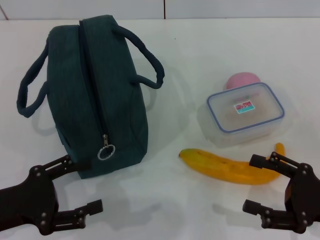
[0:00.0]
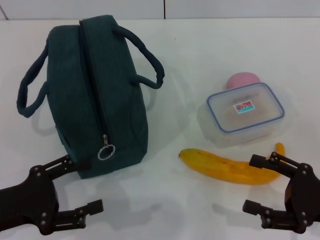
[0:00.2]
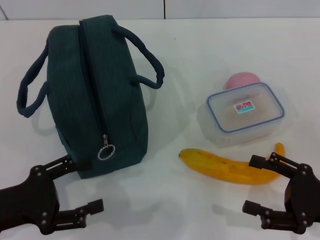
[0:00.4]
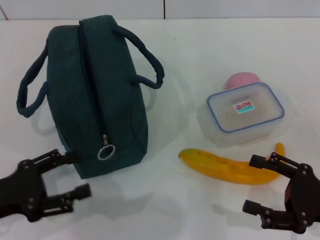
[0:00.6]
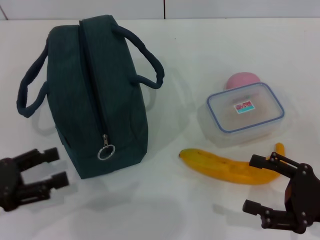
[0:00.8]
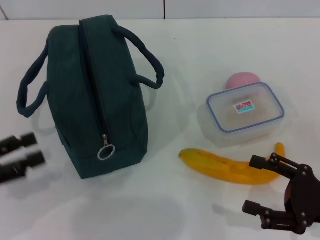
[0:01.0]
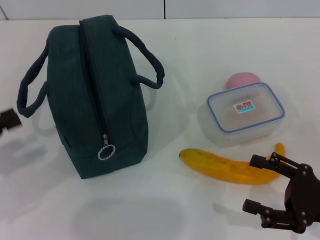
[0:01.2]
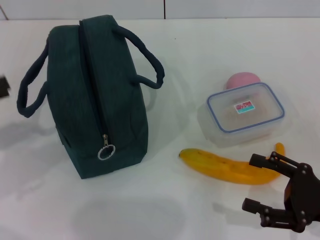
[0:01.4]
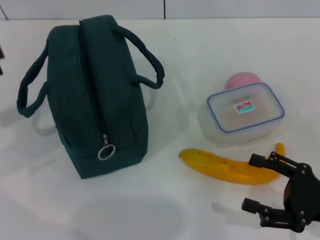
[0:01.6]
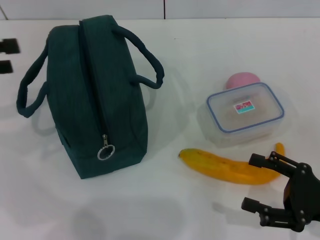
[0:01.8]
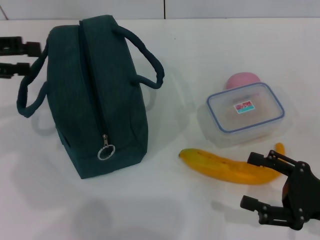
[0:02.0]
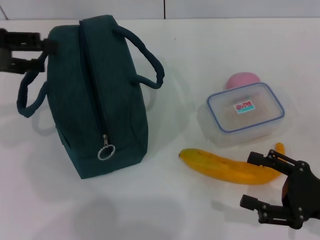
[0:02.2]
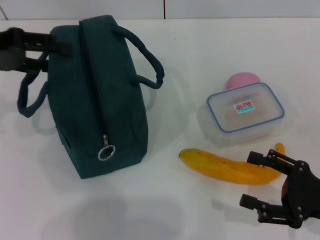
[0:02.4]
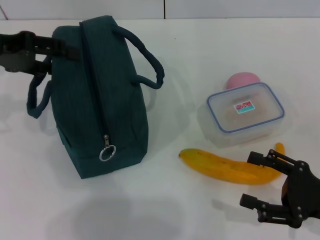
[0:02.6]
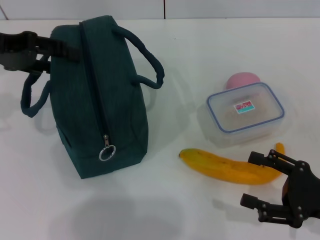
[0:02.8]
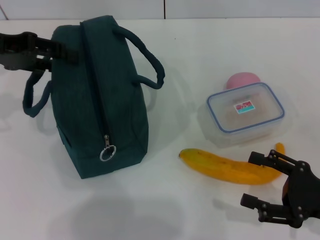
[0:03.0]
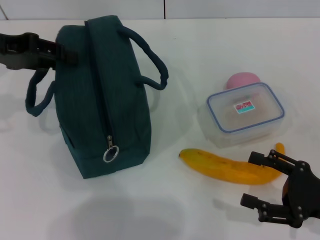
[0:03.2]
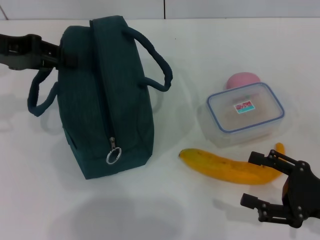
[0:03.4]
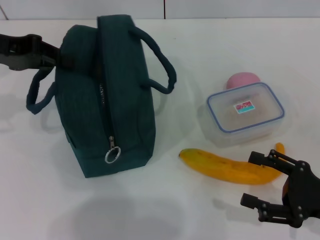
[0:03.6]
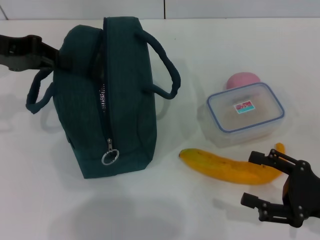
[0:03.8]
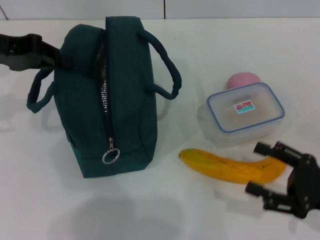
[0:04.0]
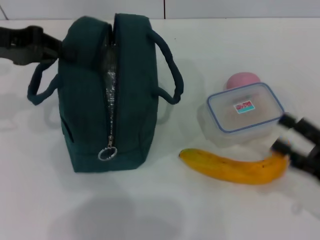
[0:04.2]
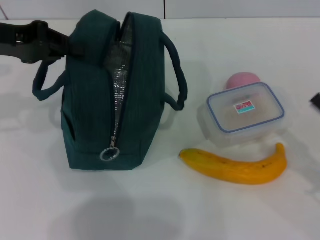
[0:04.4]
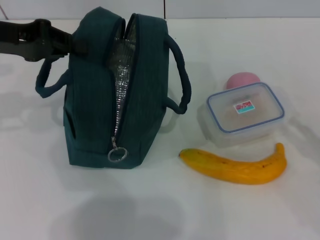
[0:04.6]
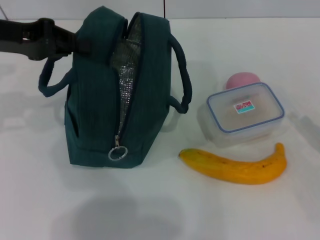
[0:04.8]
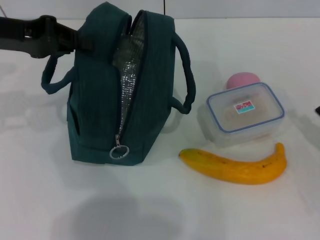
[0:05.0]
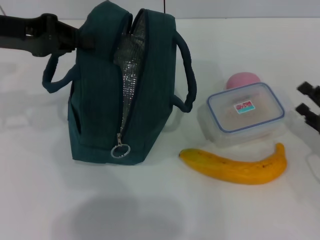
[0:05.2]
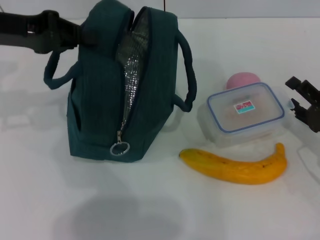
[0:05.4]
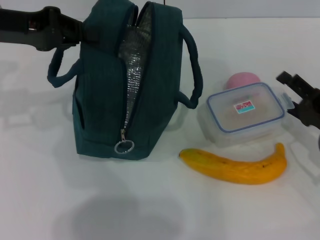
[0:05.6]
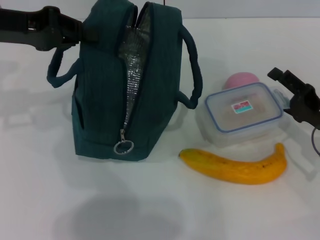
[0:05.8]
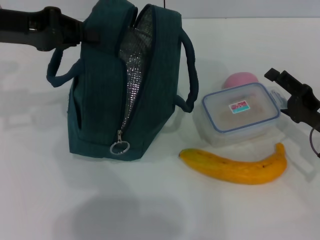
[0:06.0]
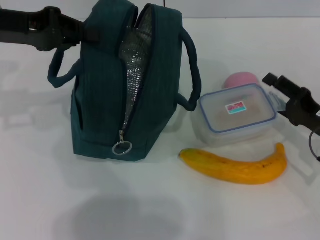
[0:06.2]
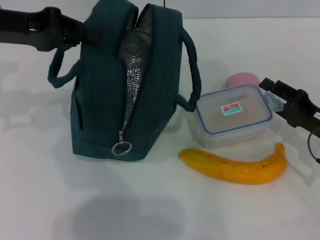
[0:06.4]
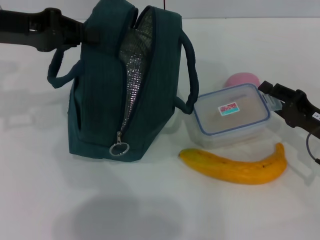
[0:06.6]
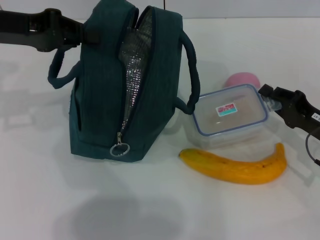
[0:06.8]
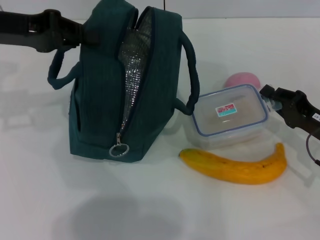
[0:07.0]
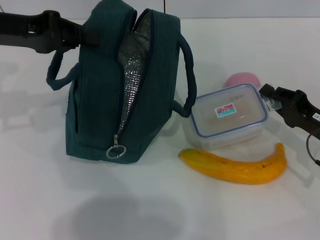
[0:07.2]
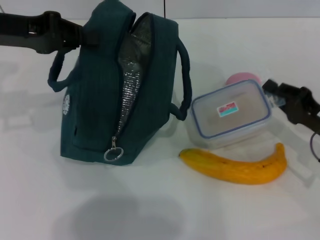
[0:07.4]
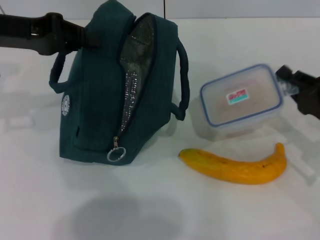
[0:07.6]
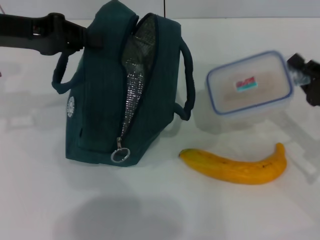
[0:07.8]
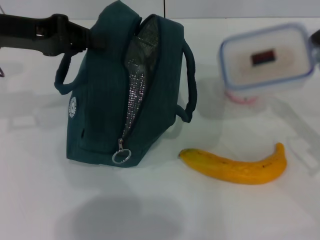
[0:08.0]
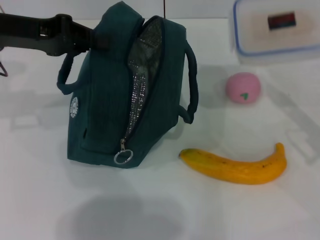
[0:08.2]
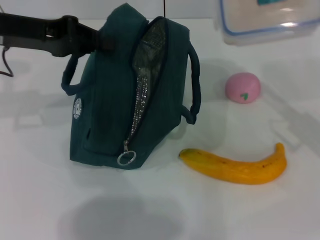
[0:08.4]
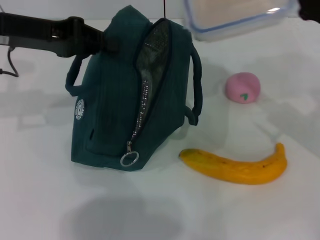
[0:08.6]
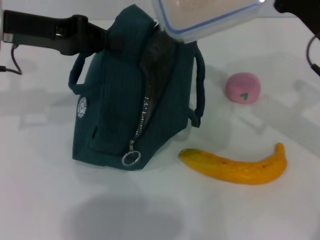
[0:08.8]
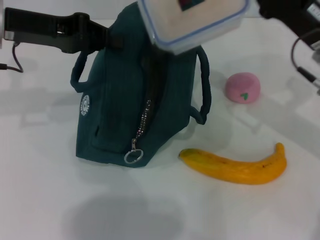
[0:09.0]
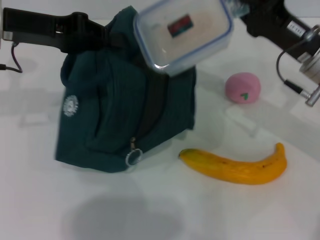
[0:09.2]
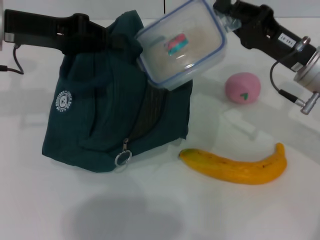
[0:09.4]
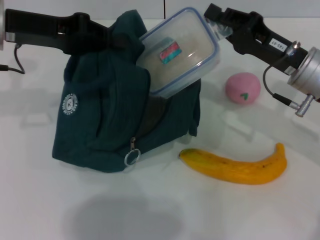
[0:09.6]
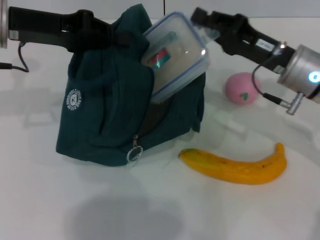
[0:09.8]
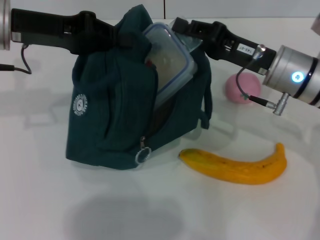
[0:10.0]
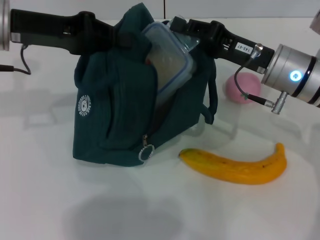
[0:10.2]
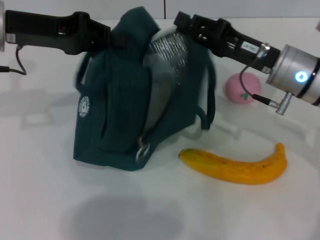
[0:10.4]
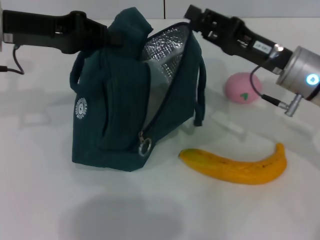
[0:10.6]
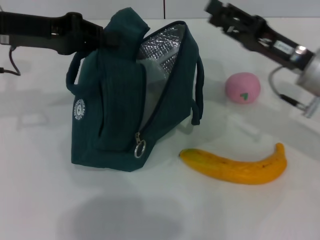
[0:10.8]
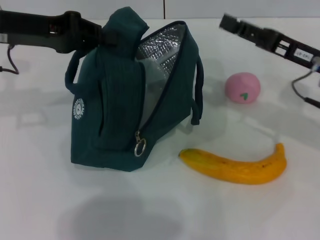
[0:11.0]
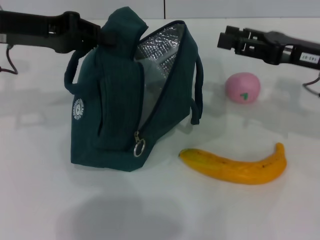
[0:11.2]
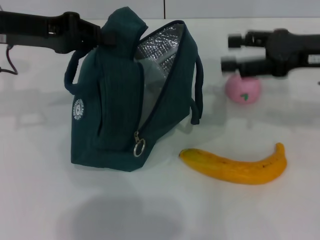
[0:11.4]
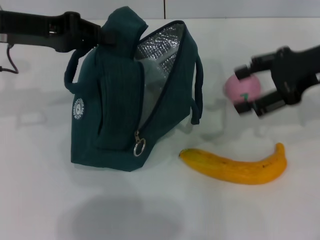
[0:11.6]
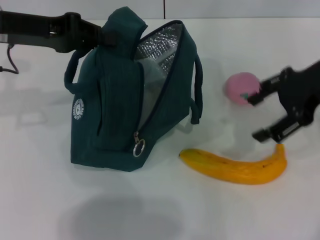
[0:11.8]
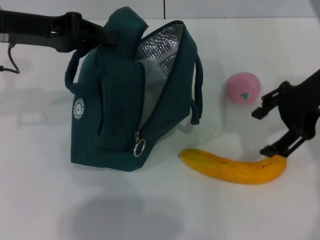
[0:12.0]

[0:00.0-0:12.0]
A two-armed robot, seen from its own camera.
Step, 0:00.0 to 0:04.6: Hold the lunch bag with your left hand.
Step, 0:04.8 to 0:06.6: Pick up the lunch box with your right hand.
Step, 0:06.8 to 0:10.2: Place the lunch box into the lunch bag with your right hand.
0:00.0 to 0:01.6: The left gripper travels upward, forward and to the left by approximately 20 cm.
0:01.6 to 0:03.0: The left gripper is displaced to the right and forward by approximately 10 cm.
0:03.0 to 0:04.4: The left gripper closes up.
0:04.4 to 0:06.0: The right gripper goes roughly 10 cm forward.
0:06.0 to 0:07.6: The right gripper closes up.
0:07.6 to 0:09.0: The right gripper is displaced upward, forward and to the left by roughly 15 cm.
0:10.4 to 0:12.0: The right gripper shifts roughly 10 cm upward, and opens its fingers.

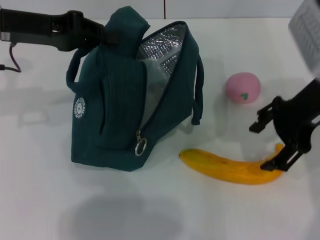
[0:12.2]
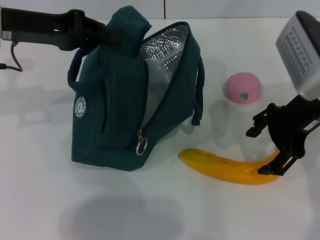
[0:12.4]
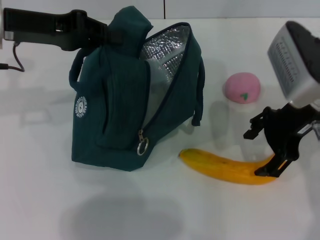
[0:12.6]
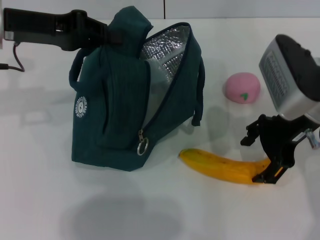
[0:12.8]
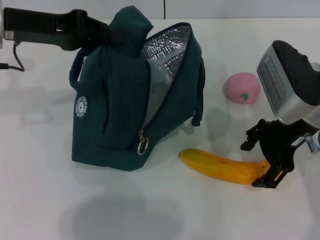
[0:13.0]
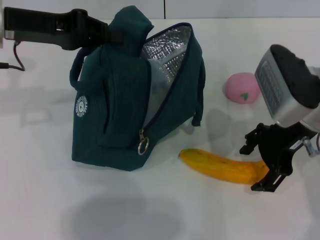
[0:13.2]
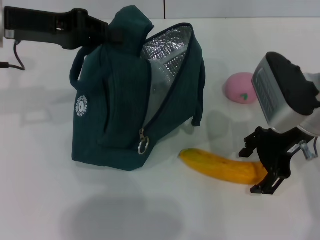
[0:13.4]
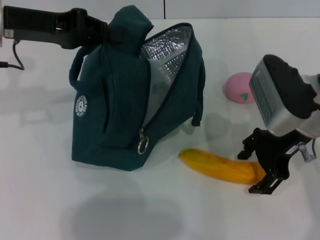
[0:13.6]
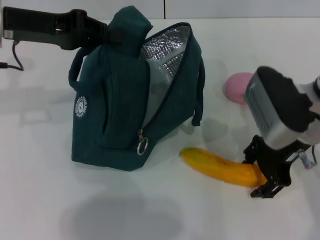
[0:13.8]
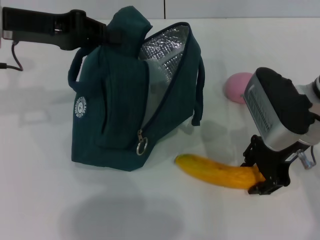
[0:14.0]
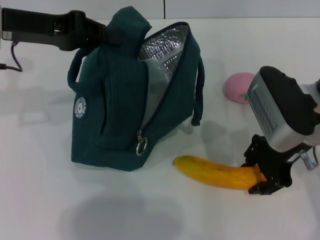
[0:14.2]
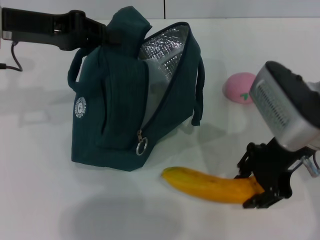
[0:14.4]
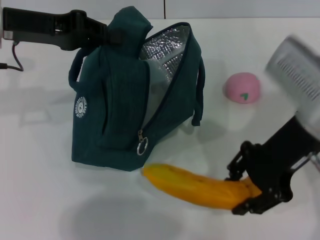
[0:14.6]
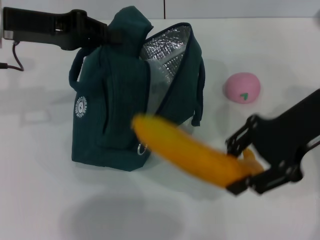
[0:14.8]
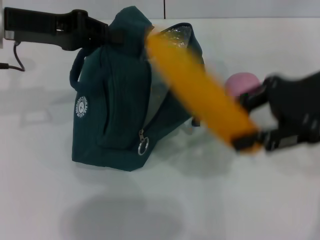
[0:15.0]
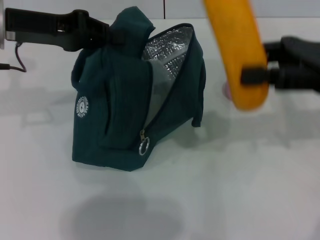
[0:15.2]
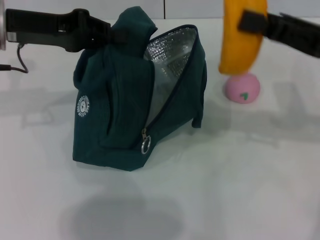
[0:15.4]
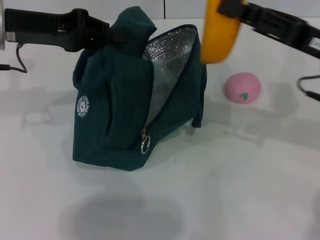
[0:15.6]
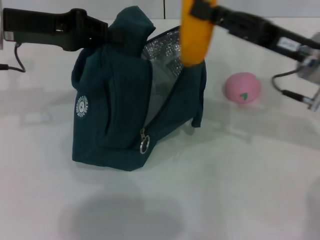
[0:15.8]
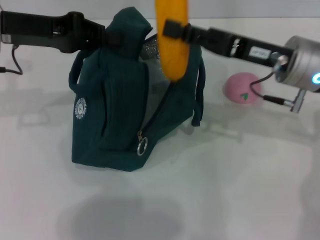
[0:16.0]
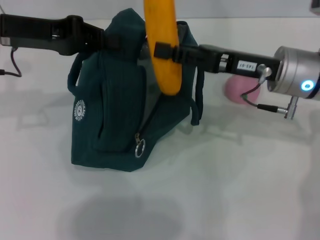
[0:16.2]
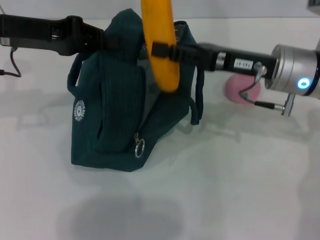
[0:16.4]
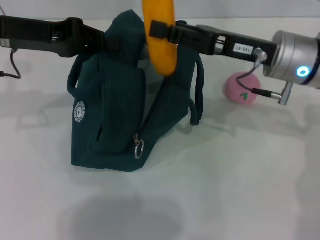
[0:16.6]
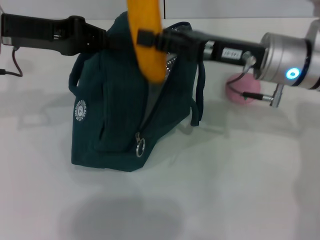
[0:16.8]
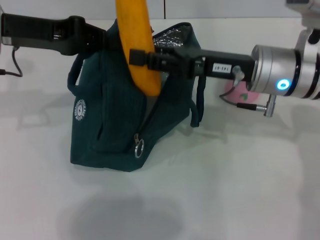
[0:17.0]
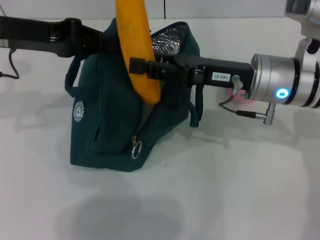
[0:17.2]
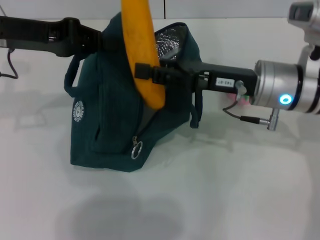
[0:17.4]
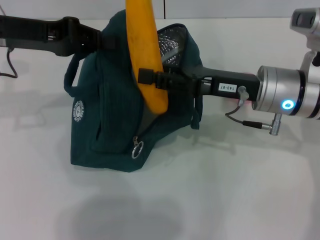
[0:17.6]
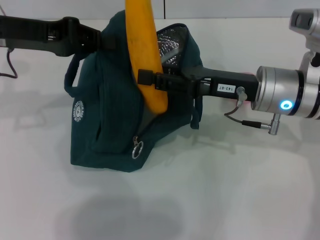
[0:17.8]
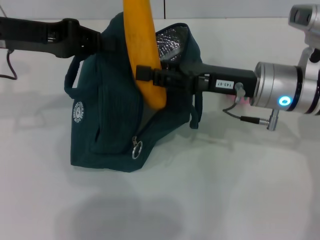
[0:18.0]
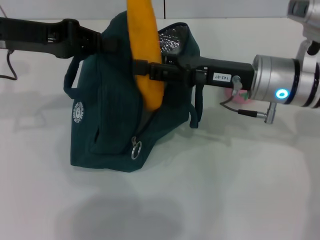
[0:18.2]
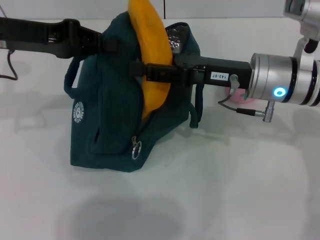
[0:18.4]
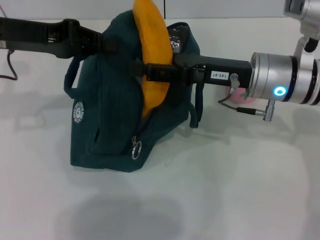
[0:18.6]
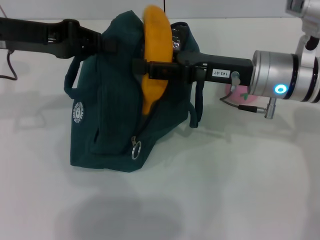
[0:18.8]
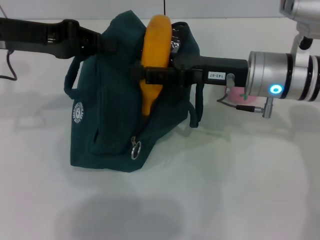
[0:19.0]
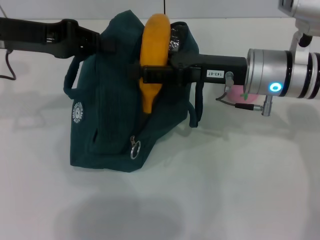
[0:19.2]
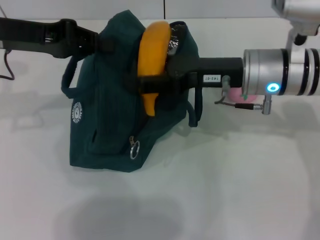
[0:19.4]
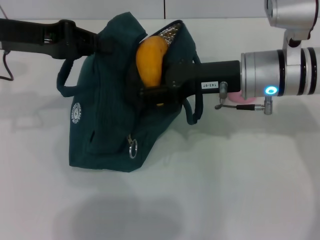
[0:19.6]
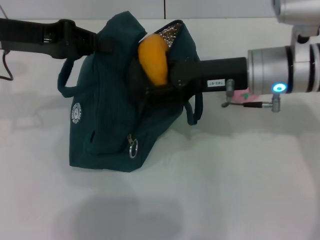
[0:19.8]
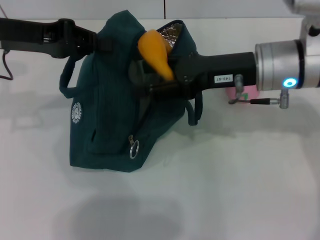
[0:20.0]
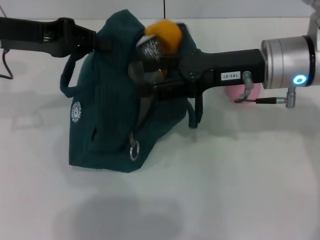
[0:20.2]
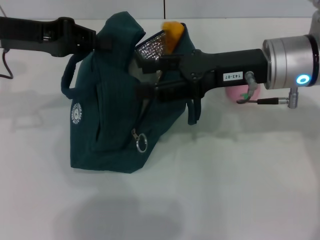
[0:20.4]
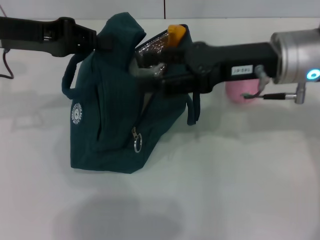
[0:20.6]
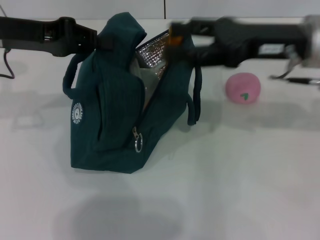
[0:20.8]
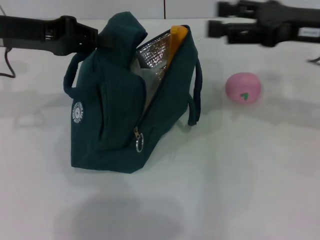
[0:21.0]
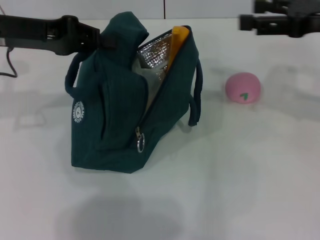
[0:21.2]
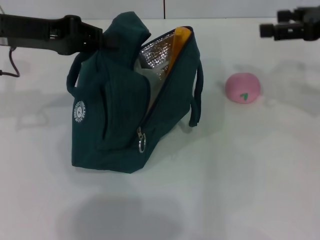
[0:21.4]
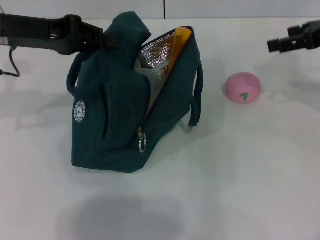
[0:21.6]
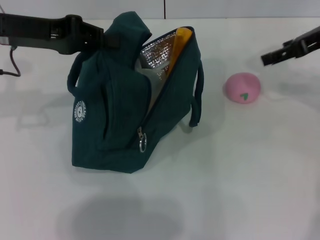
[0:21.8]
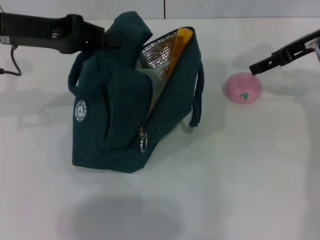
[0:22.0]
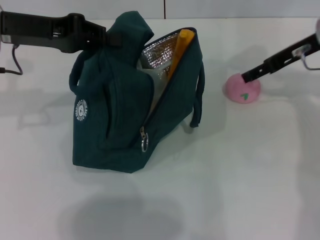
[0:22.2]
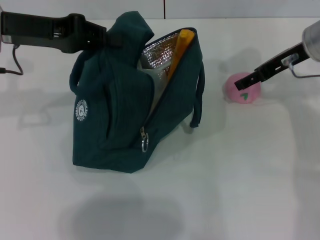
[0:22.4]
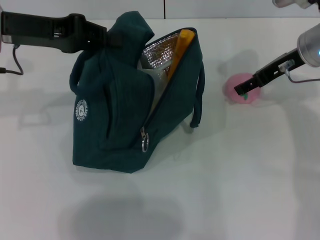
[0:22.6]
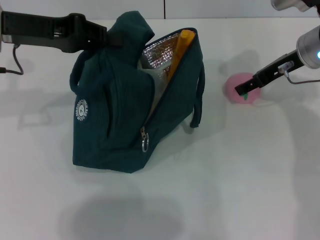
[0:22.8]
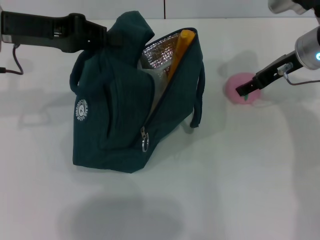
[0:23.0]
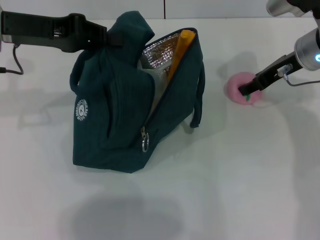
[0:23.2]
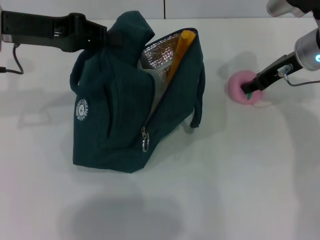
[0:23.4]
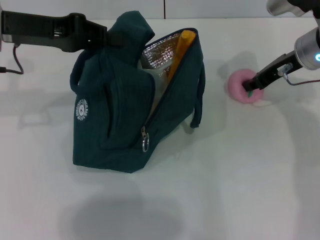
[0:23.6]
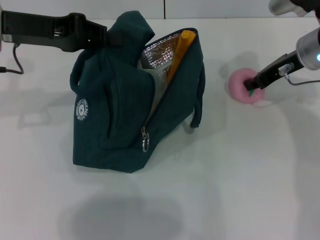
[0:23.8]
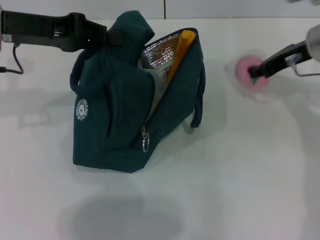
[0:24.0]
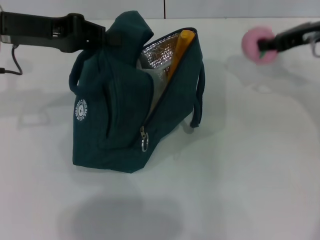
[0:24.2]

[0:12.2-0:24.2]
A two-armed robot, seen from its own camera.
Step, 0:14.0 to 0:20.6: Put the banana into the lunch bag with your right hand.
Step, 0:20.8 to 0:23.4: Grab the peach with your right hand.
0:12.2 to 0:13.8: The right gripper heads downward, covering some 5 cm.
0:13.8 to 0:15.2: The right gripper is displaced to the right and upward by roughly 10 cm, and closes up.
0:15.2 to 0:16.6: The right gripper is displaced to the left and downward by approximately 10 cm.
0:16.6 to 0:18.2: The grippers make only small movements.
0:18.2 to 0:19.8: The grippers move only a little.
0:19.8 to 0:21.2: The right gripper shifts about 15 cm to the right and upward.
0:21.2 to 0:22.6: The right gripper is displaced forward, downward and to the left by roughly 10 cm.
0:22.6 to 0:24.2: The right gripper changes place by roughly 5 cm, and closes up.
